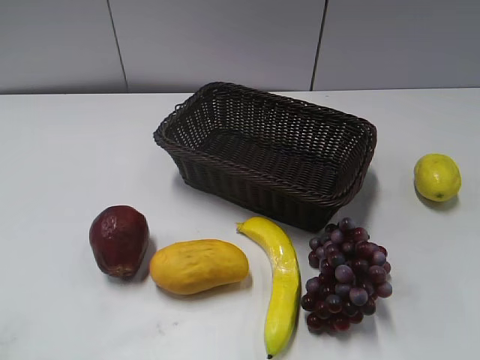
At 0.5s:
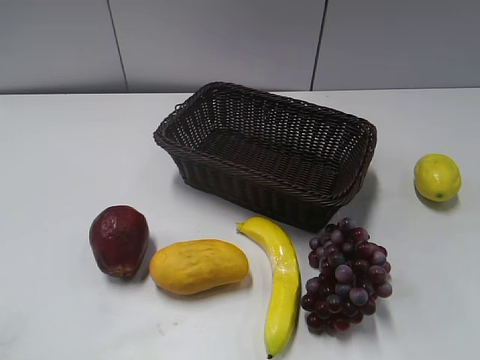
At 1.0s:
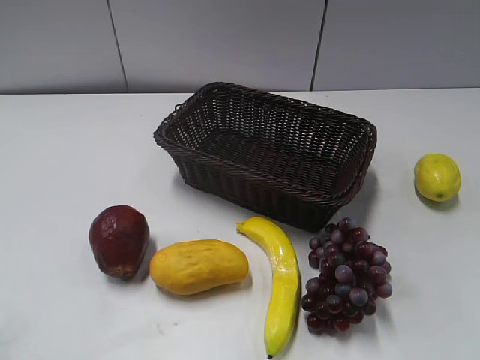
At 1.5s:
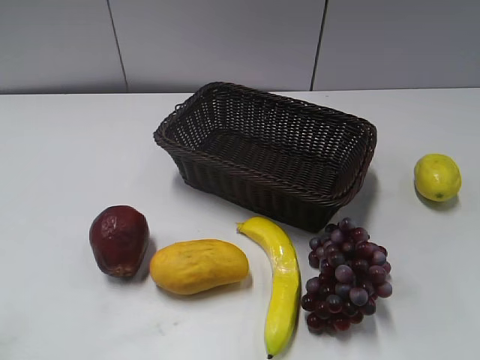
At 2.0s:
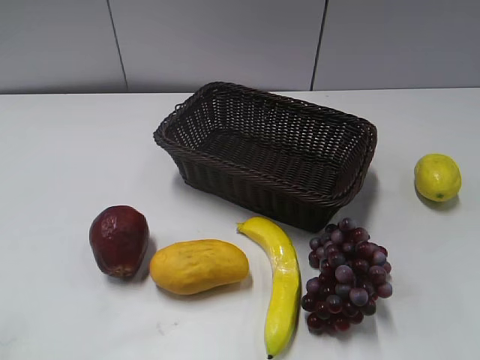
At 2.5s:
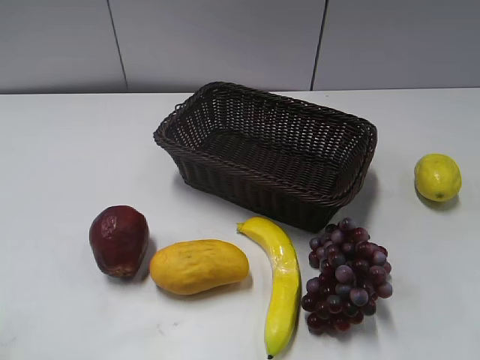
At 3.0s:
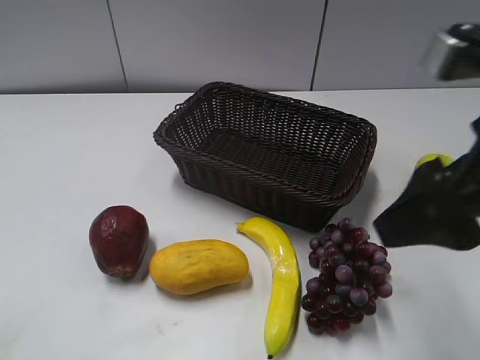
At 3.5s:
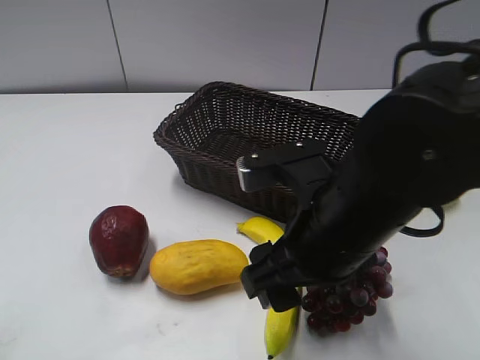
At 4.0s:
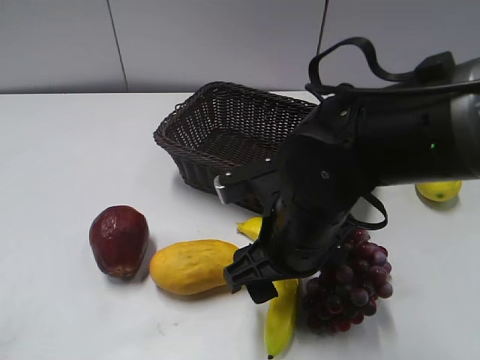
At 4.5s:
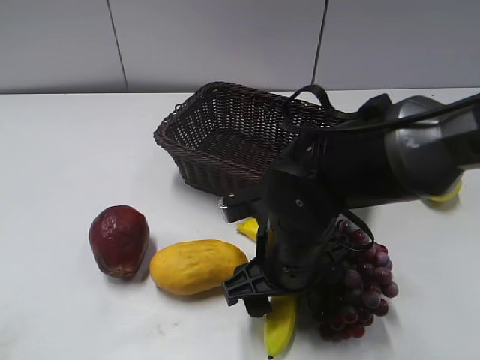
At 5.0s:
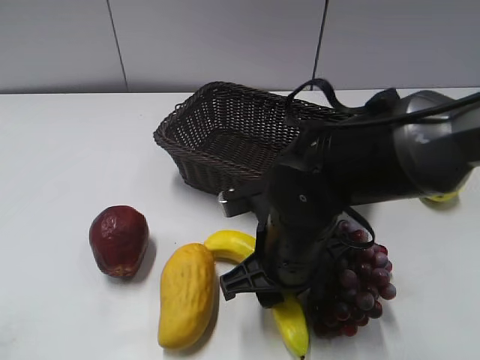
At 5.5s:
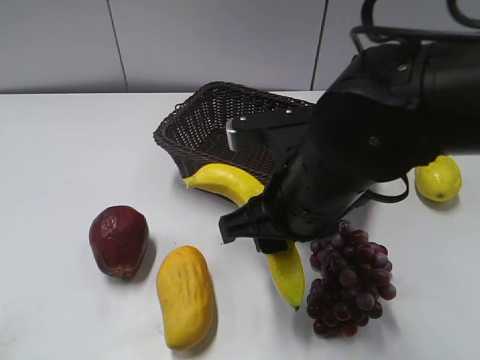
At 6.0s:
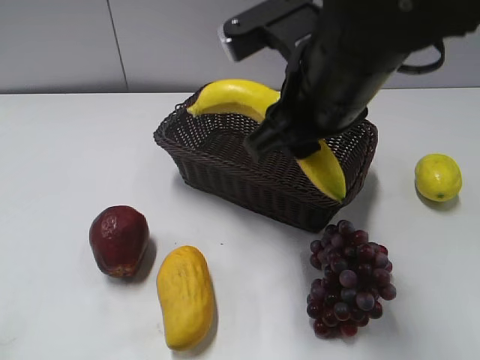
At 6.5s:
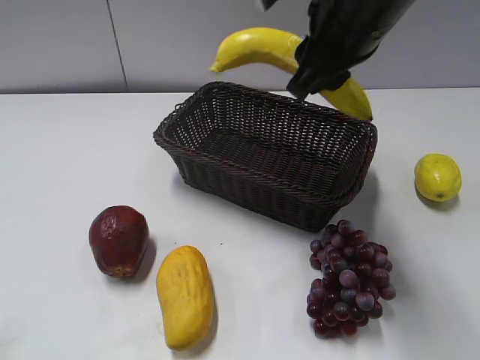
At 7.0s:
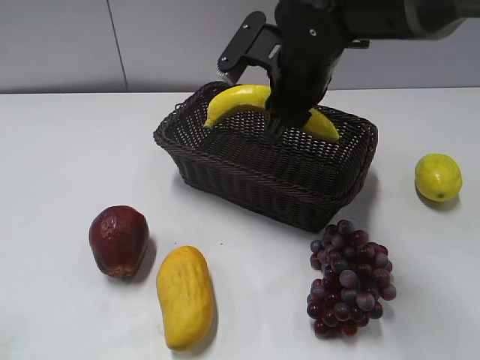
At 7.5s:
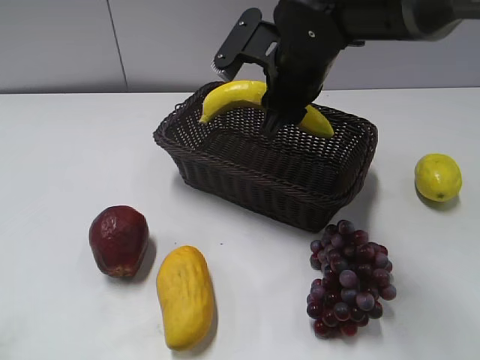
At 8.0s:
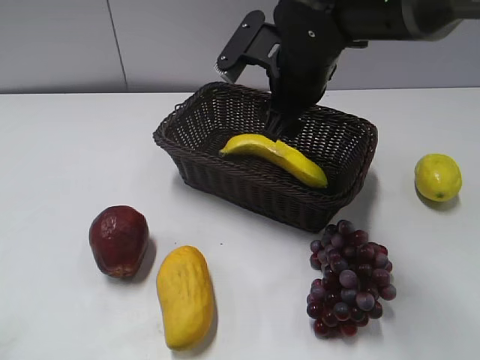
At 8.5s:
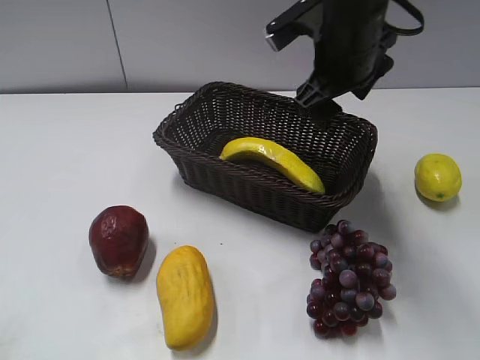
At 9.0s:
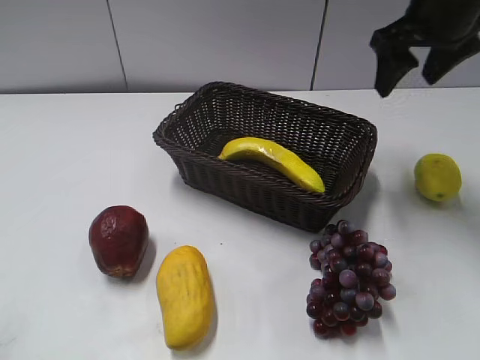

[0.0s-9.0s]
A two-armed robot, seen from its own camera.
Step, 3.0s to 4.5s: Grasp the banana with right gripper.
Step, 5.0s to 7.5s: Place the banana in the basket with right gripper.
2.0s to 4.5s: The right gripper heads to the left, downward and forward, covering about 35 cm.
4.5s to 7.0s: The right gripper heads forward and upward, covering about 20 cm, and closes its fingers.
7.0s to 9.0s: The right gripper travels to the right and upward by roughly 20 cm, and opens its fingers.

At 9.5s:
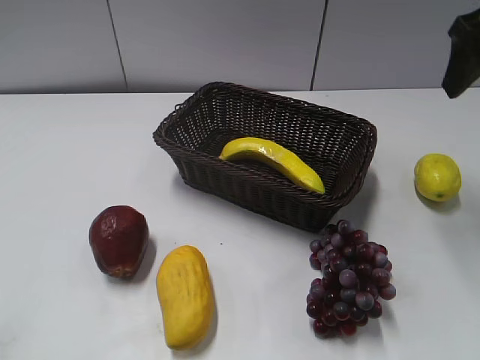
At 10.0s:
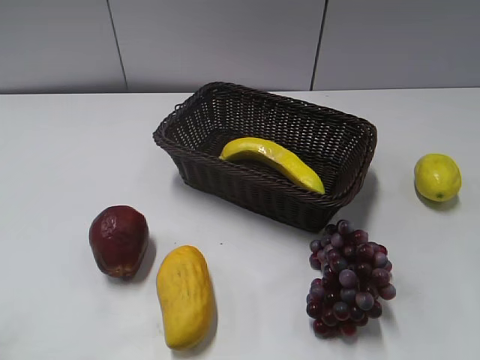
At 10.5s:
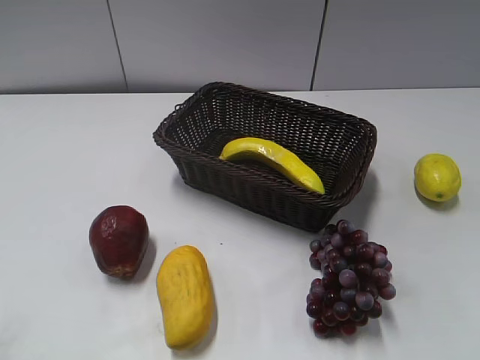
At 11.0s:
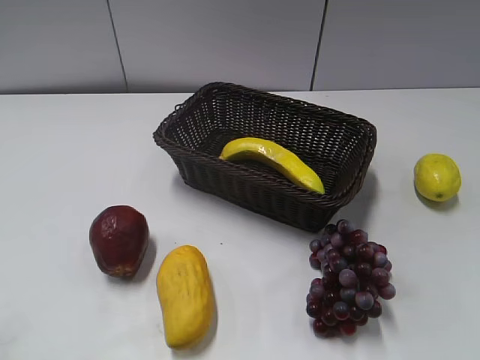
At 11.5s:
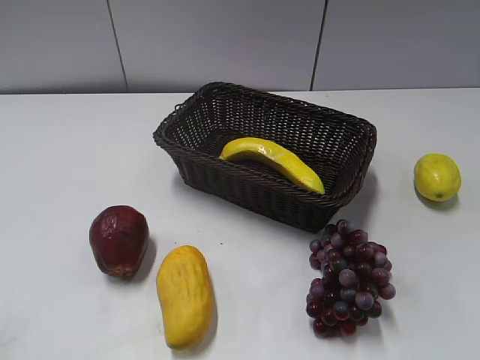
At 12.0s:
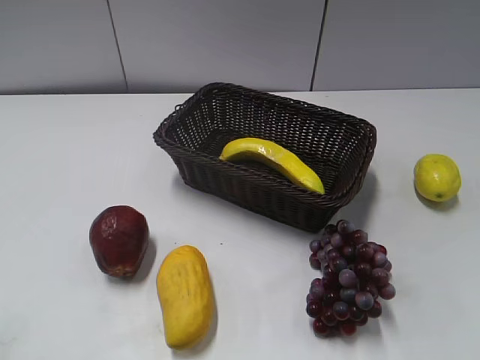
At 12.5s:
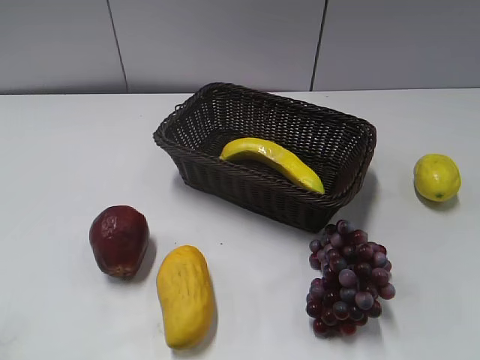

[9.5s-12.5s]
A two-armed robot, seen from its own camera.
9.5s to 11.0s: The right gripper is displaced backward by approximately 25 cm.
